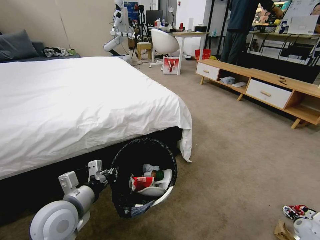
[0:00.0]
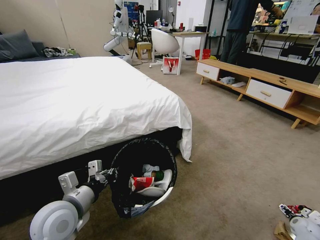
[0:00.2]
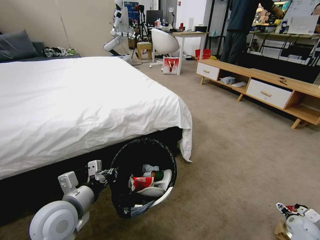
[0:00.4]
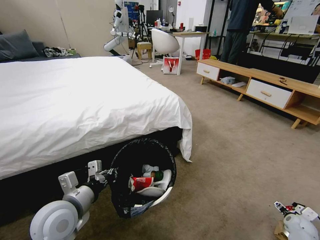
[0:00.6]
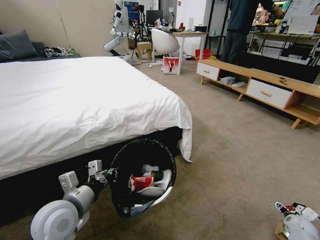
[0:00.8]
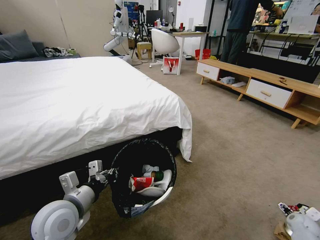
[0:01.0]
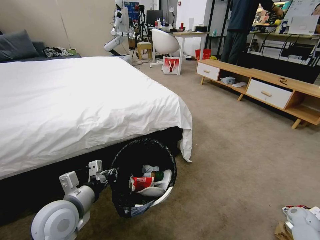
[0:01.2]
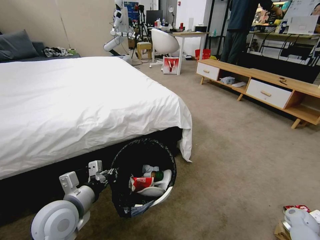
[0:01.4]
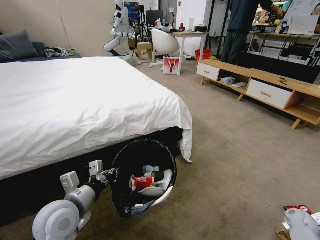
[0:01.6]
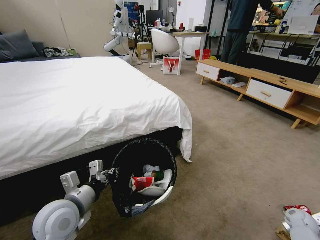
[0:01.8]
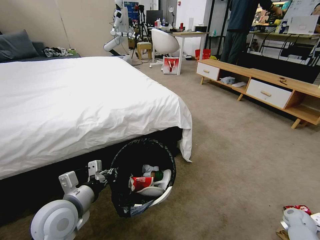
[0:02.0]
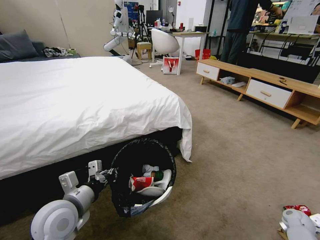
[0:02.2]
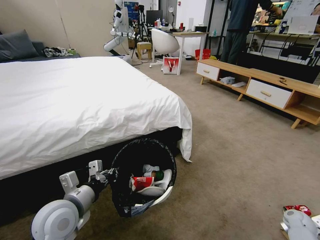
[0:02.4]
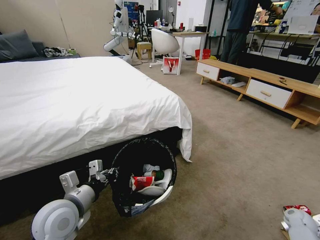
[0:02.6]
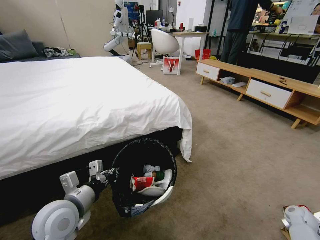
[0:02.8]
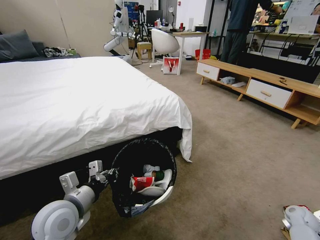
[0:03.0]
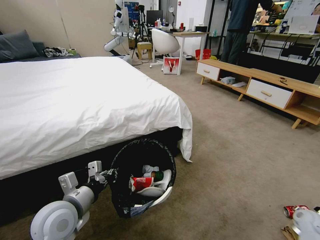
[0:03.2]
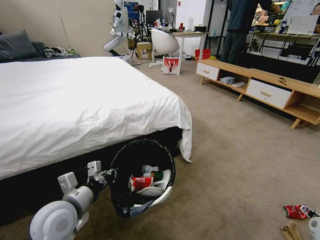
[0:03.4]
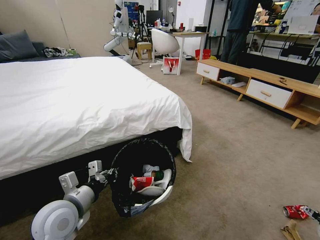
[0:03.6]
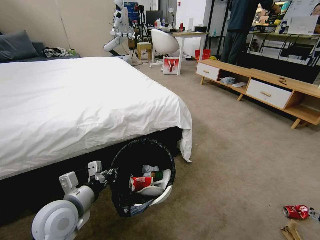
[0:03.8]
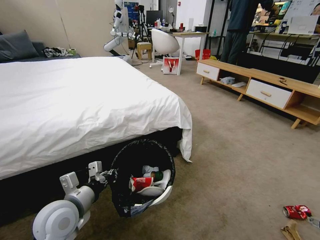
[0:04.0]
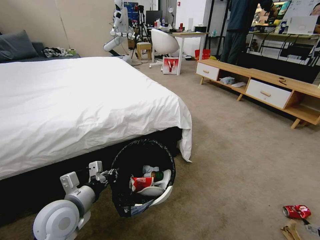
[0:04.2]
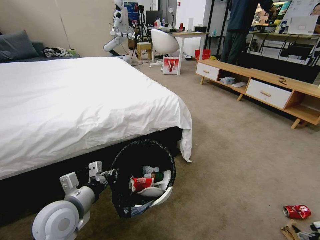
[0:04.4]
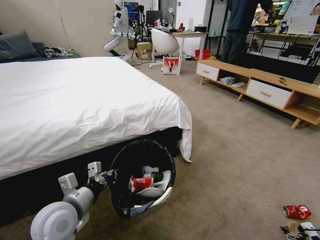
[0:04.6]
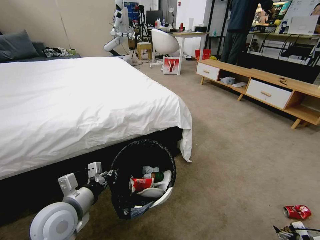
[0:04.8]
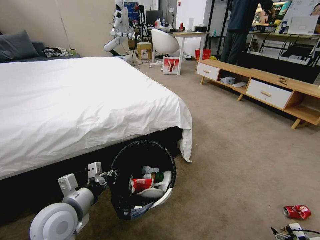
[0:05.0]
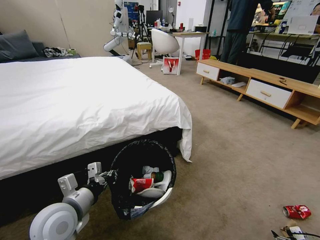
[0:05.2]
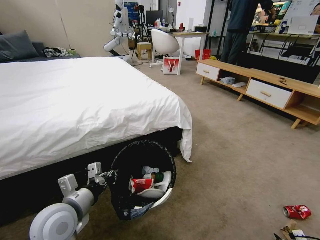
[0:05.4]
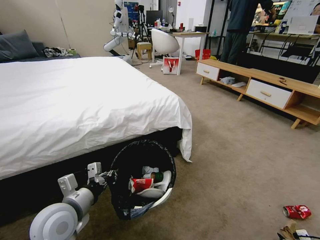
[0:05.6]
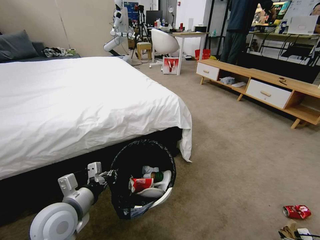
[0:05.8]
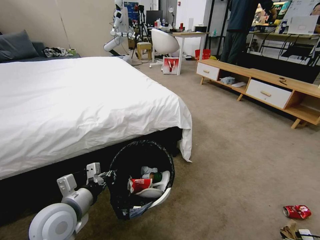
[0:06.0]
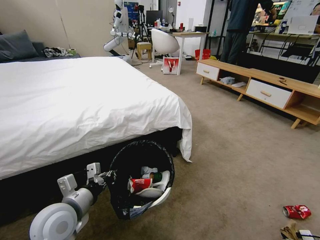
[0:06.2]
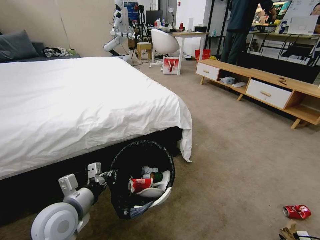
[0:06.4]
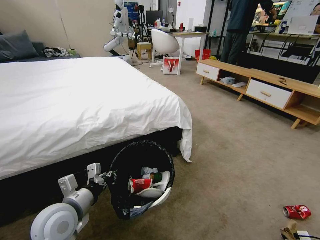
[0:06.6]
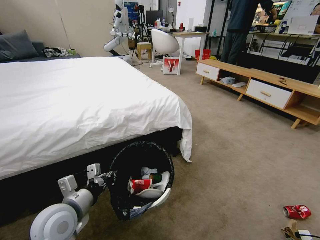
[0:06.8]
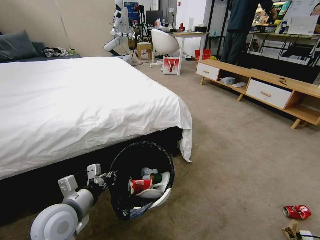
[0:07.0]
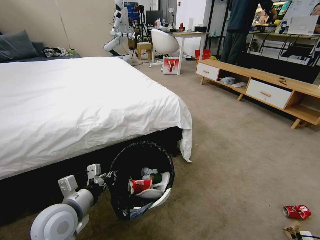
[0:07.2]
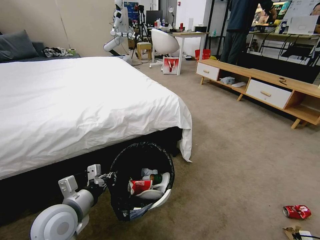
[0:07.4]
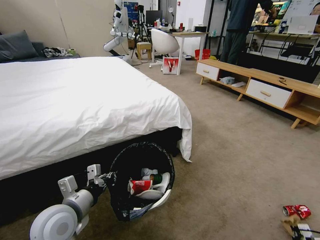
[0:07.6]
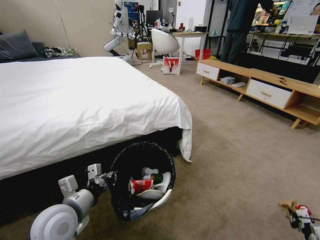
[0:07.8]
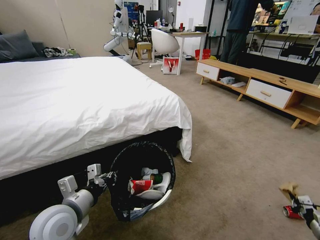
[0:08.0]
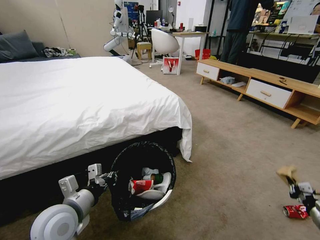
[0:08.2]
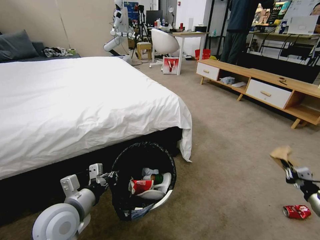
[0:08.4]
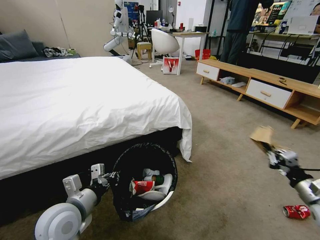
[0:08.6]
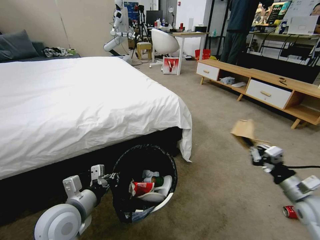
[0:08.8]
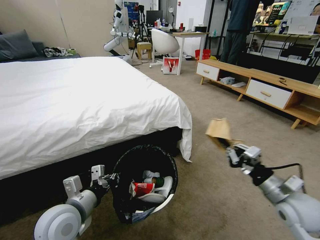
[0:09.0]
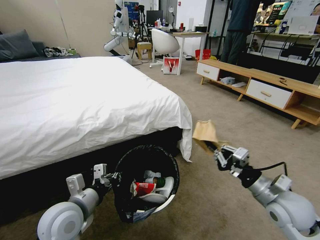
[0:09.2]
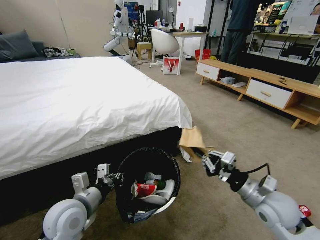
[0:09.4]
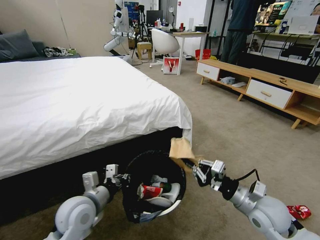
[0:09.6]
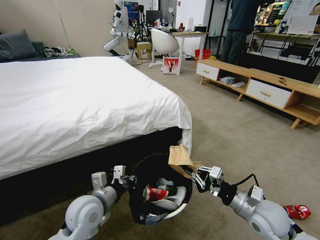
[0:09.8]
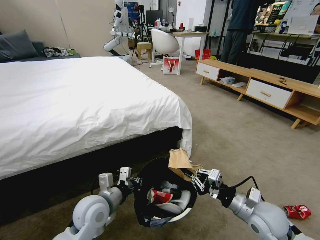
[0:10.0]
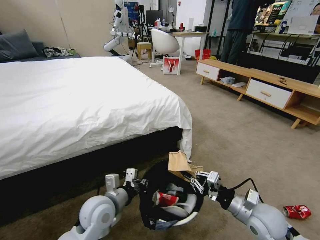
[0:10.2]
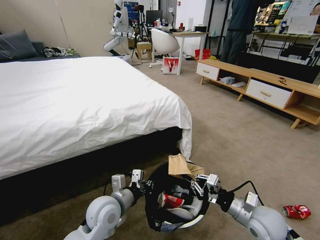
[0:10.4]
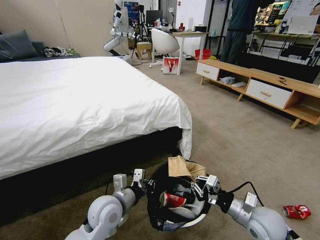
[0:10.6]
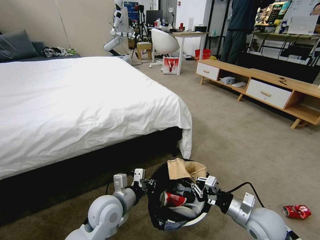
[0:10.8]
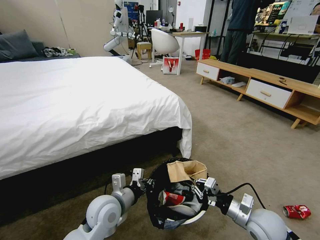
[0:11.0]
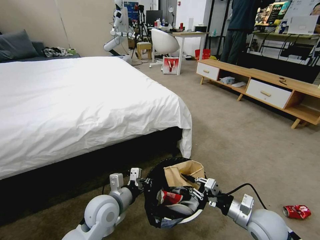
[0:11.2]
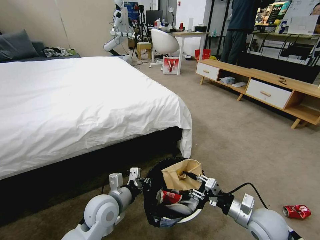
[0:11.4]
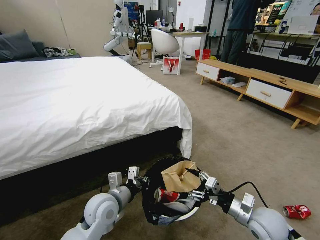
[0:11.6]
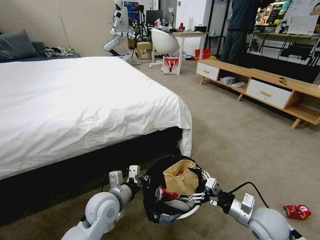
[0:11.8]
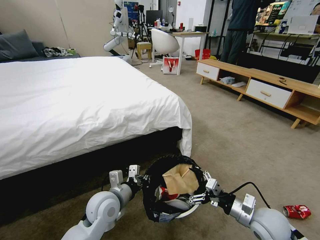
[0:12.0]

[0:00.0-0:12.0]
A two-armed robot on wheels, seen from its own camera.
Task of the whole recording: Pick up the trash bin and place the garbage on the floor into it.
0:00.0 to 0:01.6: The right gripper shifts by approximately 5 cm.
0:03.0 to 0:04.4: The right gripper goes approximately 20 cm backward and to the right.
0:04.4 to 0:06.0: The right gripper heads downward, covering some 10 cm.
0:06.0 to 0:07.6: The right gripper closes up.
0:07.6 to 0:09.0: The right gripper shifts about 40 cm upward and to the left.
0:09.0 to 0:10.4: The right gripper travels downward and to the left by approximately 10 cm. The left gripper moves to the right and downward, about 10 cm.
0:10.4 to 0:12.0: The right gripper opens.

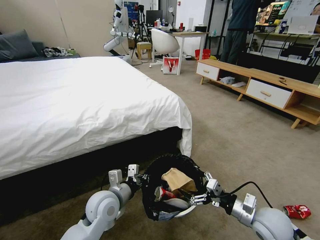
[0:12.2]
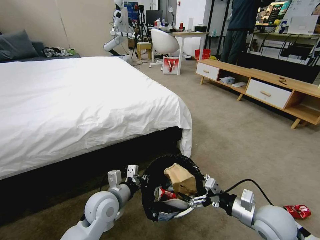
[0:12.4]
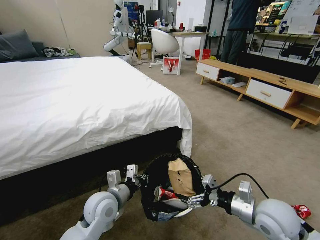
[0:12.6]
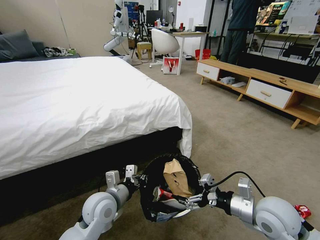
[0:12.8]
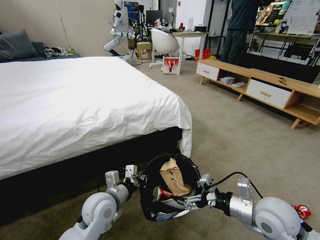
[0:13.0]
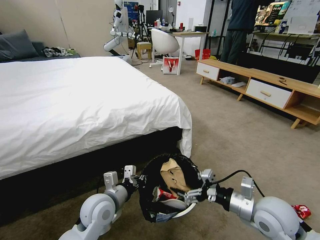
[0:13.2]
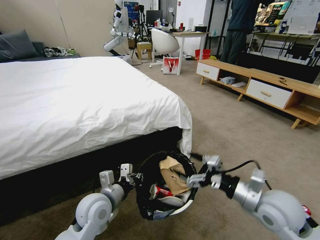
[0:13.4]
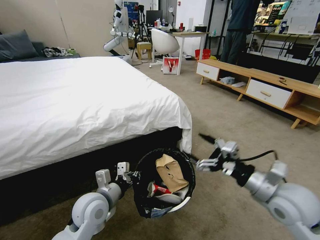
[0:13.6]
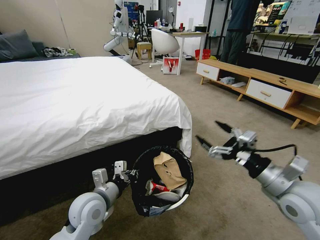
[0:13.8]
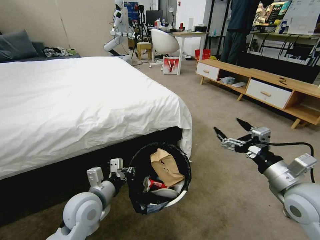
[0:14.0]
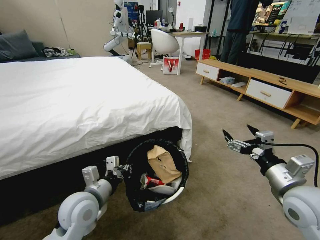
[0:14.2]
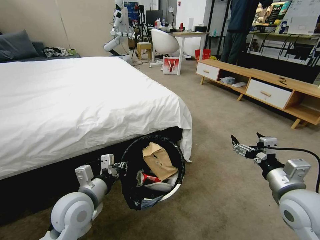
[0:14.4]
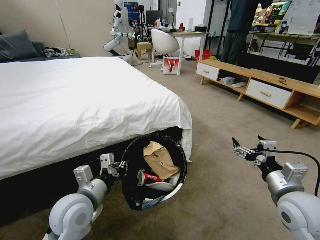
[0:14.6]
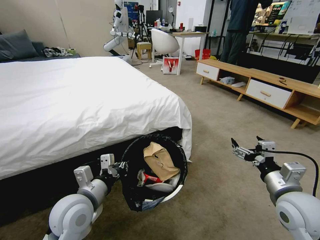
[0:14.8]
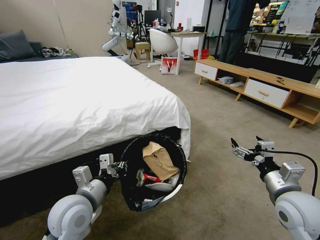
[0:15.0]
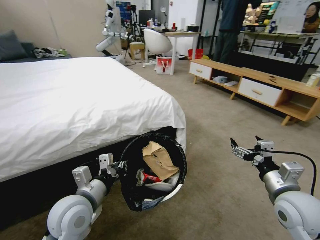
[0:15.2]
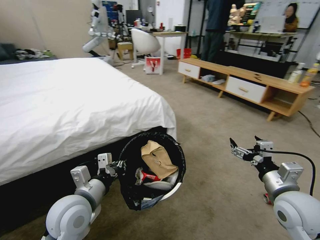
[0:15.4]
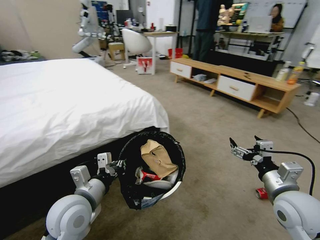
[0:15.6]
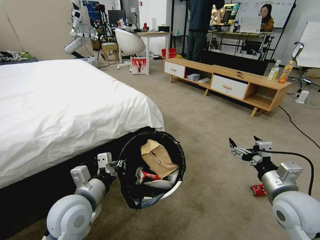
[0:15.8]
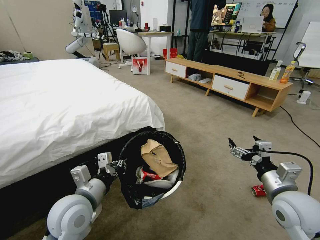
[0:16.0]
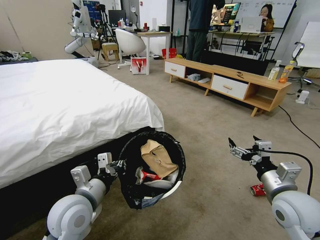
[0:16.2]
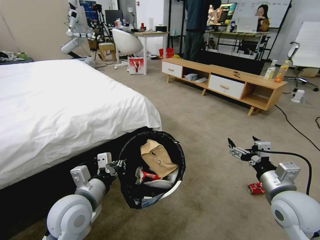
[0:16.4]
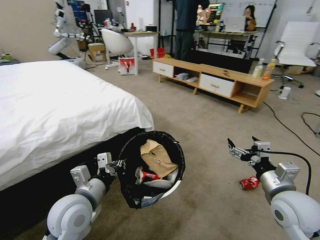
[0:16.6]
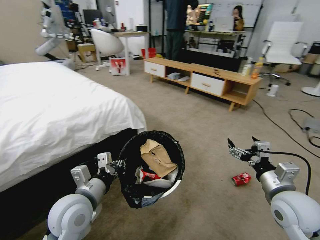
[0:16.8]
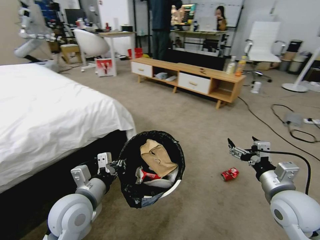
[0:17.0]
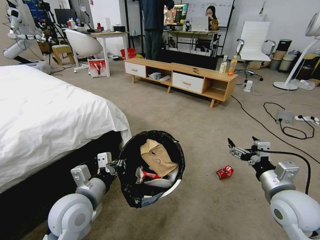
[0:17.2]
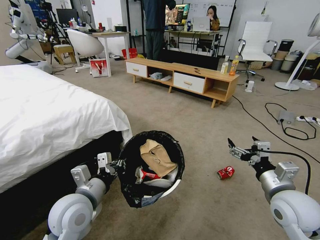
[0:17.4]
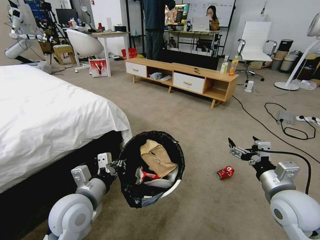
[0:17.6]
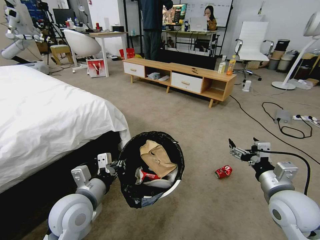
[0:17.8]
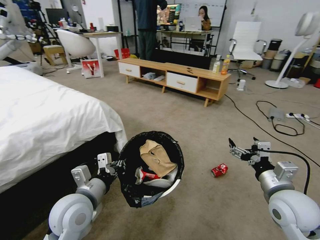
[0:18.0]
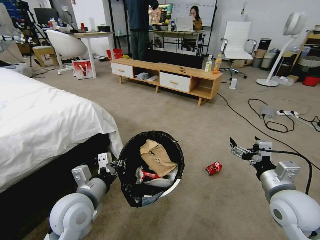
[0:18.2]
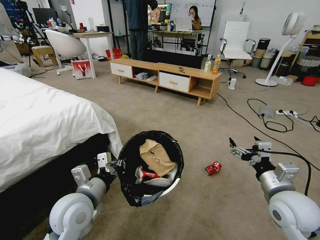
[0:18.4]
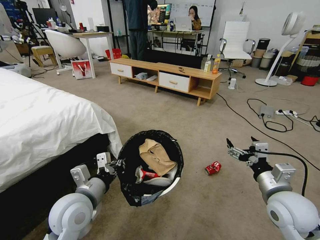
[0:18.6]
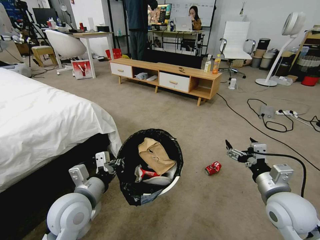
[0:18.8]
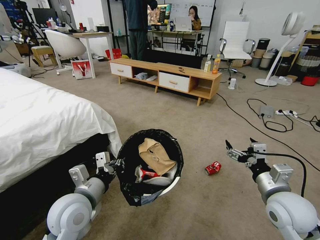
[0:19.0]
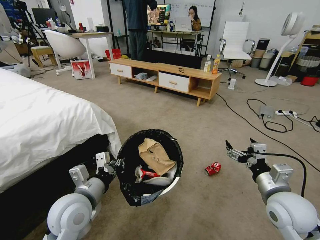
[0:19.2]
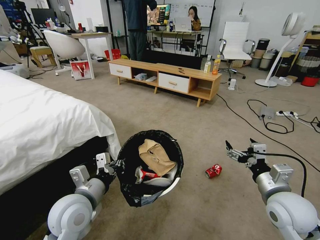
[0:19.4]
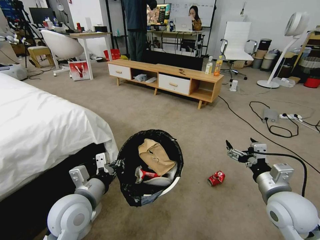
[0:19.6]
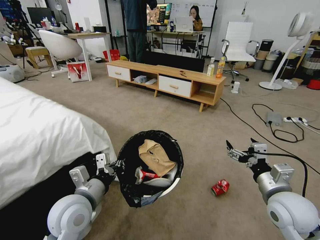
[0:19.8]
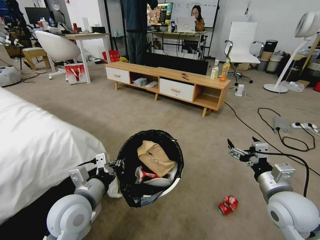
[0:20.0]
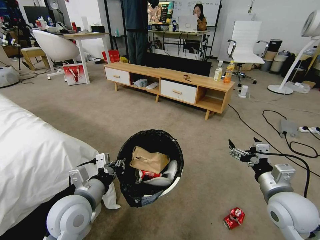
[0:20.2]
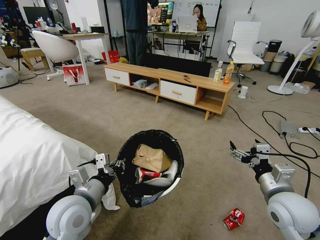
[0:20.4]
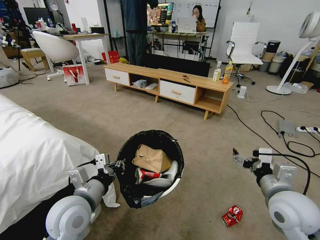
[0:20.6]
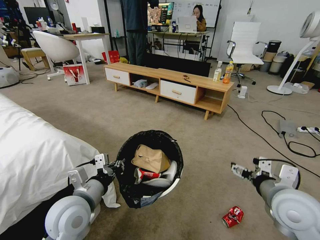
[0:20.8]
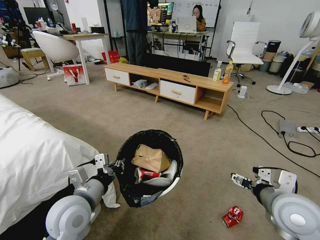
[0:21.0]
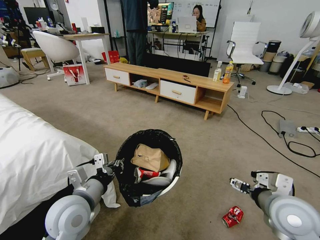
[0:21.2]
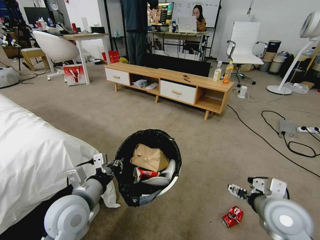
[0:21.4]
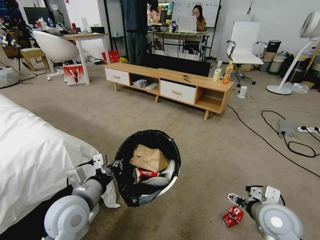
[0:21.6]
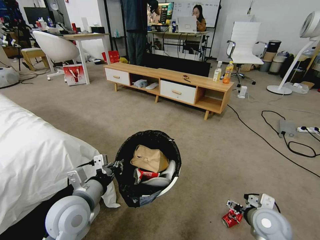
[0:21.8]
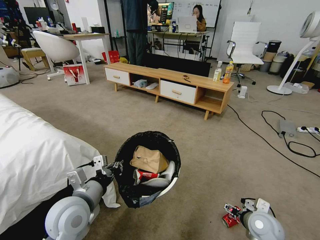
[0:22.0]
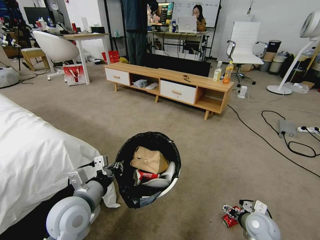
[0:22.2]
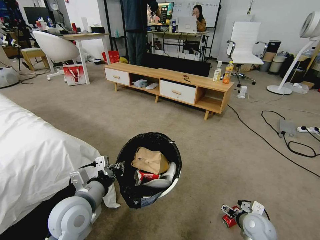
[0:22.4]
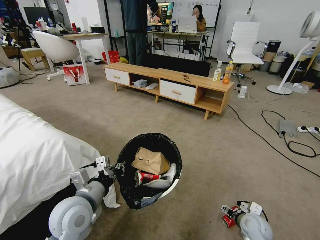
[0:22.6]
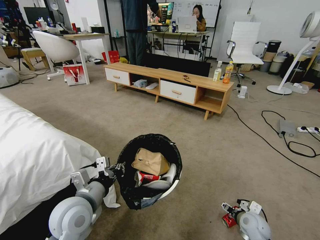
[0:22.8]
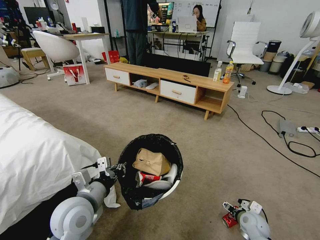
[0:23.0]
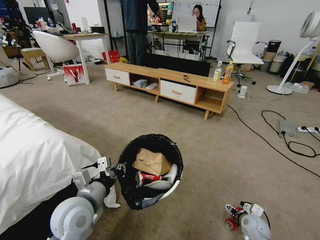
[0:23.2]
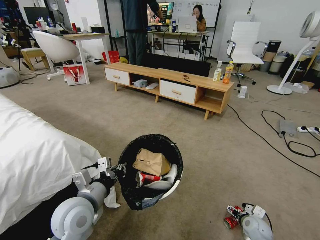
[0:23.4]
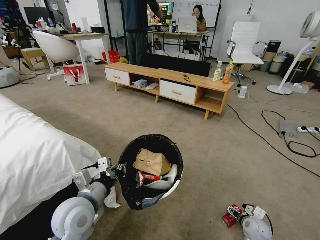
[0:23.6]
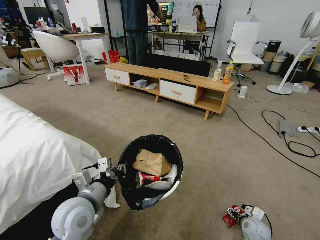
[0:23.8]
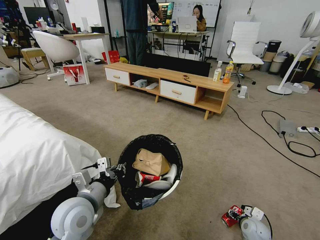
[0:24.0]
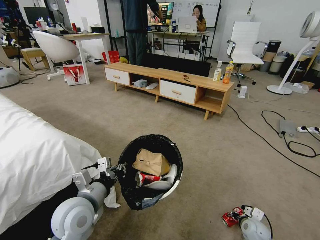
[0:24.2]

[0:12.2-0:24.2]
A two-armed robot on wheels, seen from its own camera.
Task of the whole recording: Pick up the trash bin and place the garbage on the floor into it.
0:12.2 to 0:13.8: The right gripper is displaced upward by approximately 15 cm.
0:13.8 to 0:15.2: The left gripper changes place by some 5 cm.
0:21.2 to 0:22.6: The right gripper heads downward, covering some 25 cm.
0:22.6 to 0:24.2: The right gripper is displaced downward by roughly 10 cm, and closes up.
